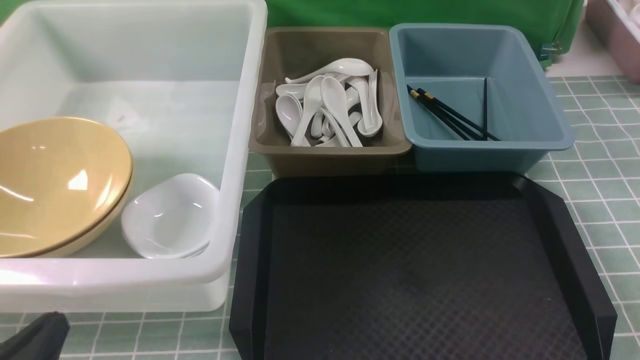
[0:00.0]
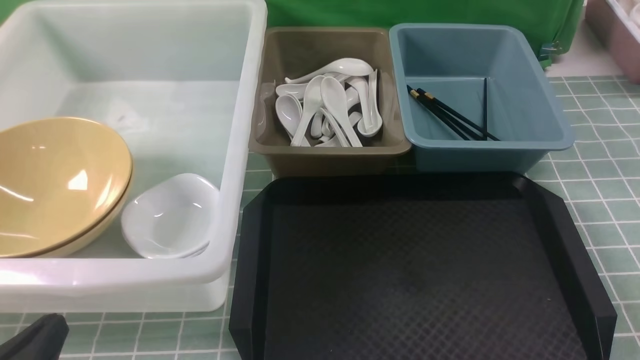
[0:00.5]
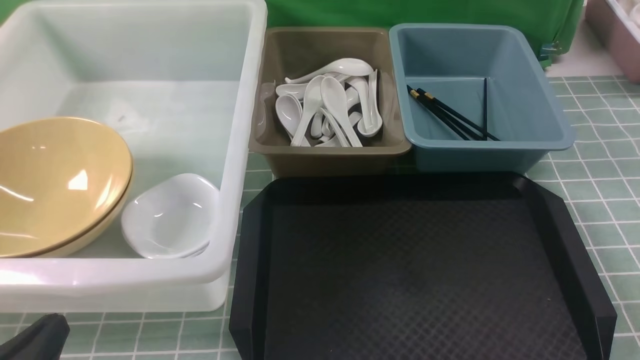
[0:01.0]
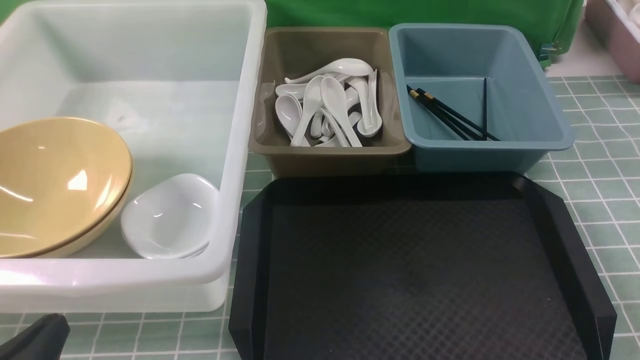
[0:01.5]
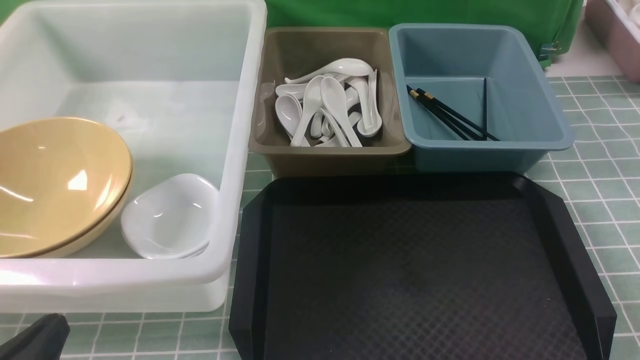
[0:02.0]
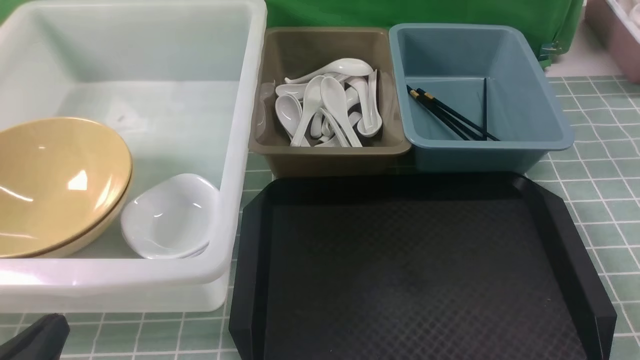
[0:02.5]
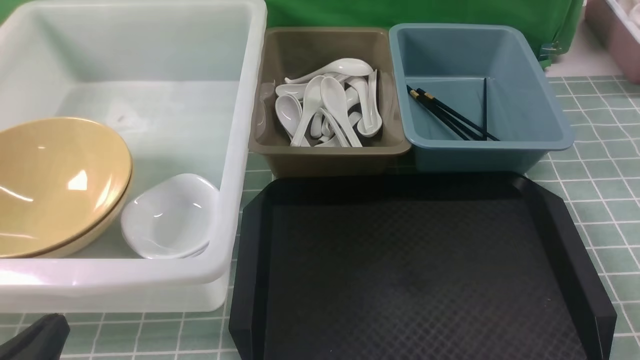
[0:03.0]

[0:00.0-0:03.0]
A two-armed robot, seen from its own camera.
Task of the whole recording: on blue table put chopsticks spoon bowls plates into blue grey white boxes.
0:00.0 to 0:03.0: Both grippers stay put.
